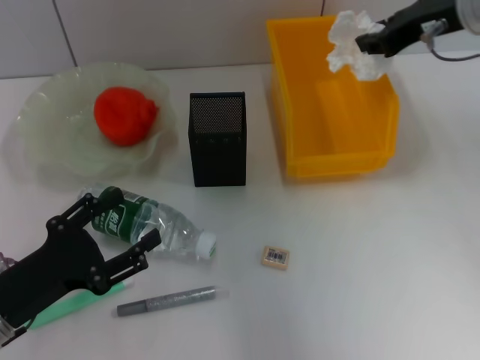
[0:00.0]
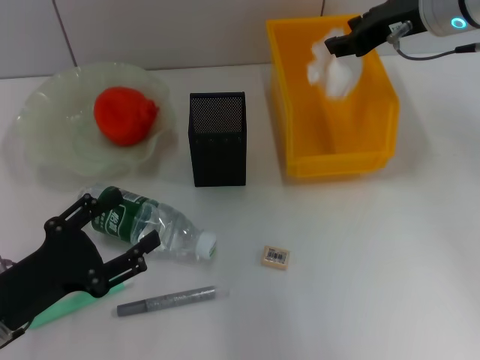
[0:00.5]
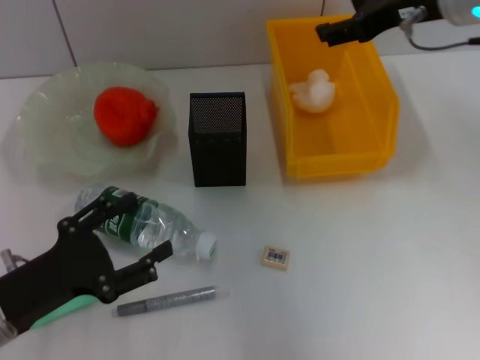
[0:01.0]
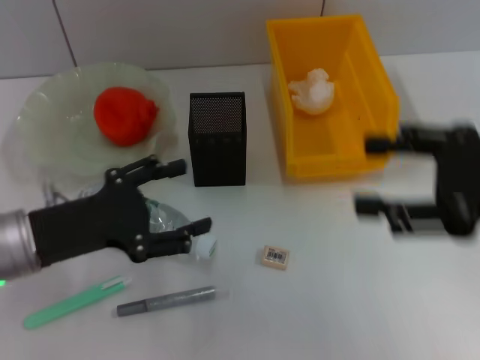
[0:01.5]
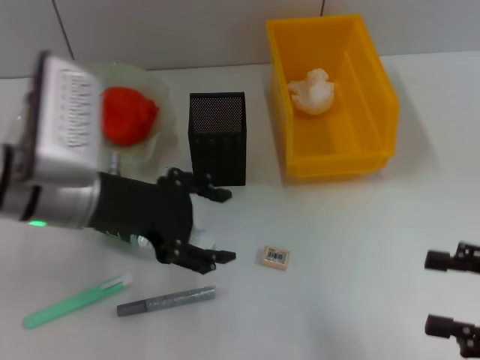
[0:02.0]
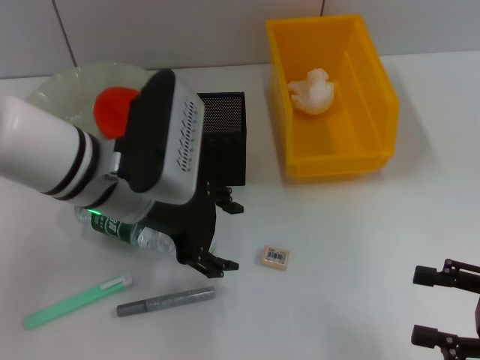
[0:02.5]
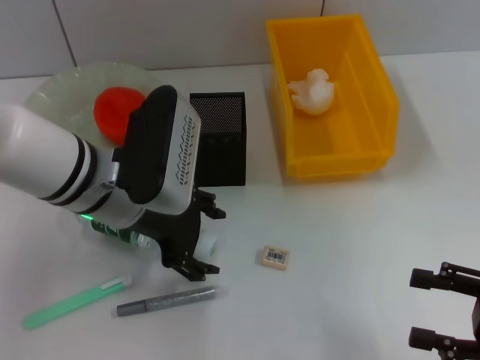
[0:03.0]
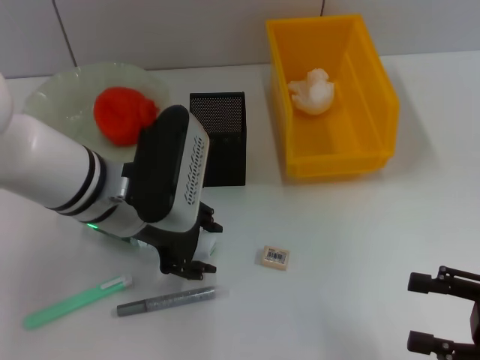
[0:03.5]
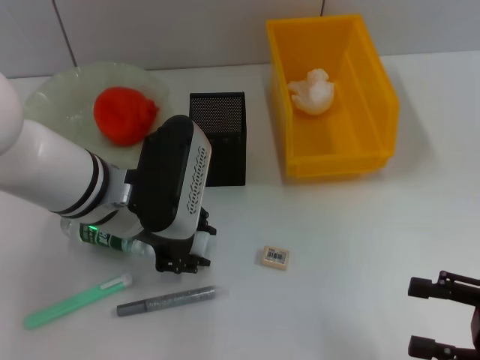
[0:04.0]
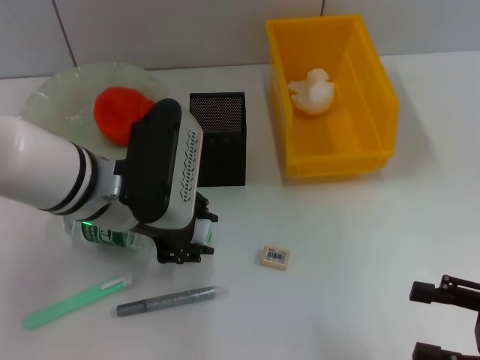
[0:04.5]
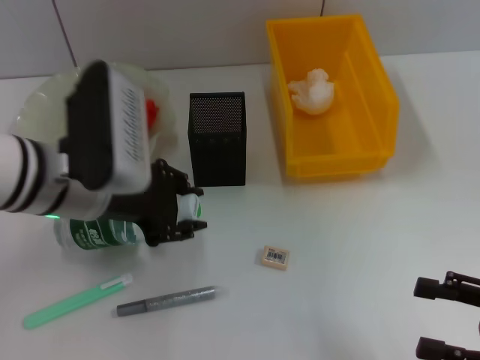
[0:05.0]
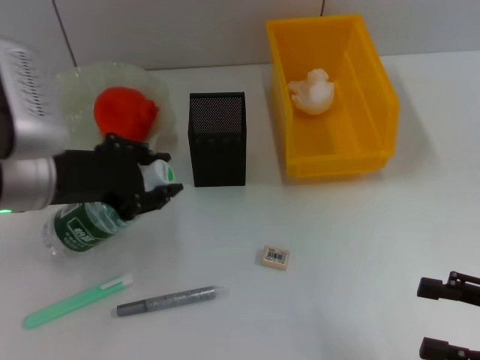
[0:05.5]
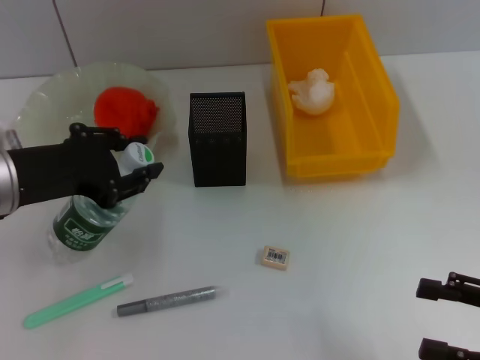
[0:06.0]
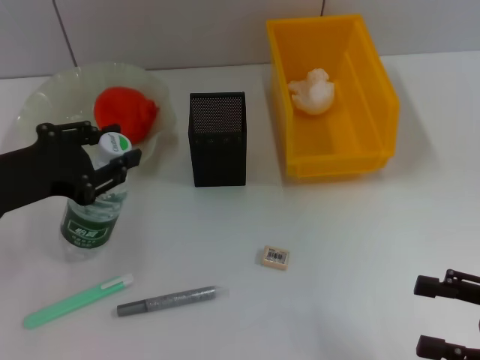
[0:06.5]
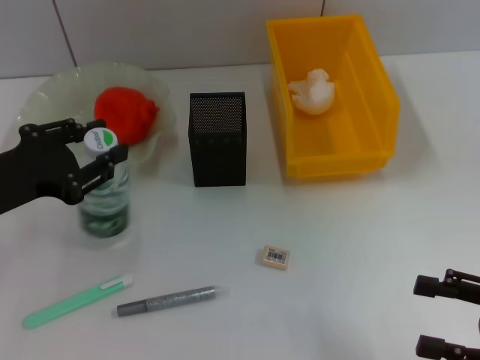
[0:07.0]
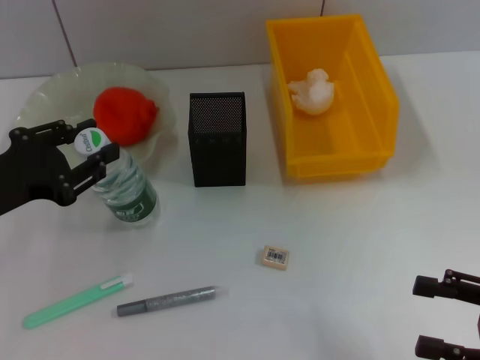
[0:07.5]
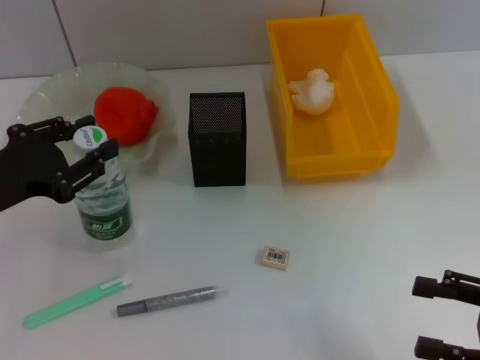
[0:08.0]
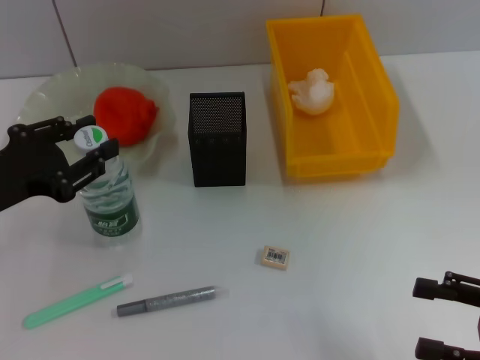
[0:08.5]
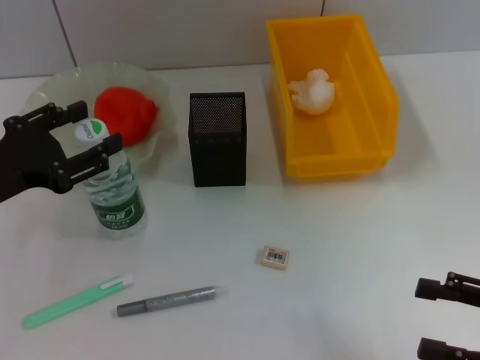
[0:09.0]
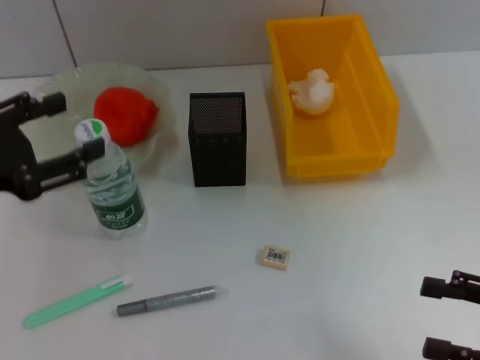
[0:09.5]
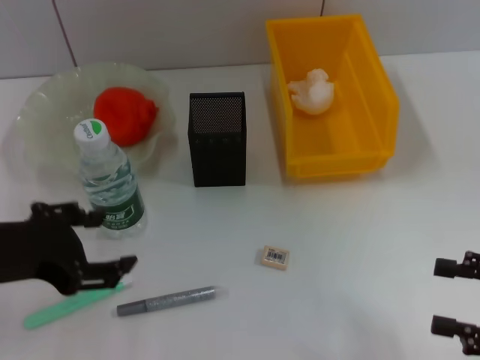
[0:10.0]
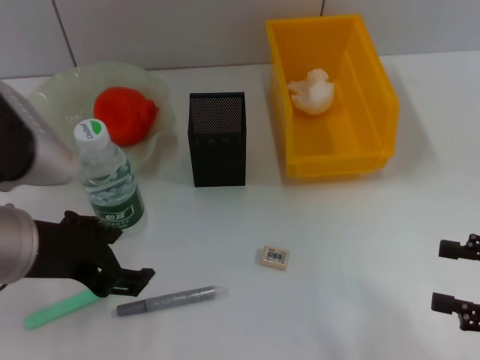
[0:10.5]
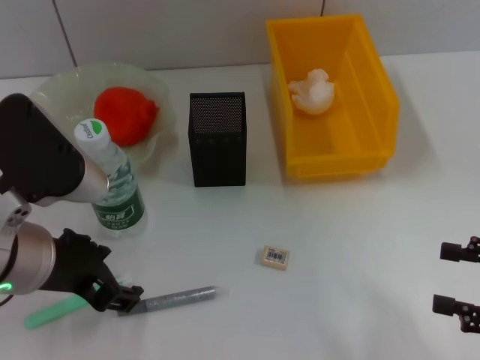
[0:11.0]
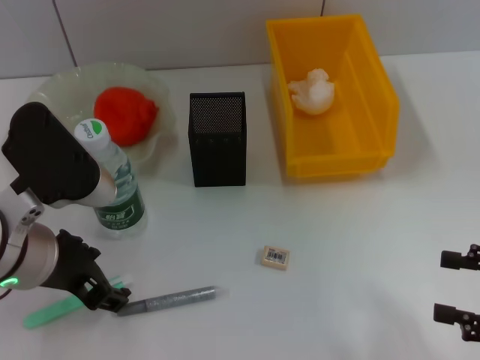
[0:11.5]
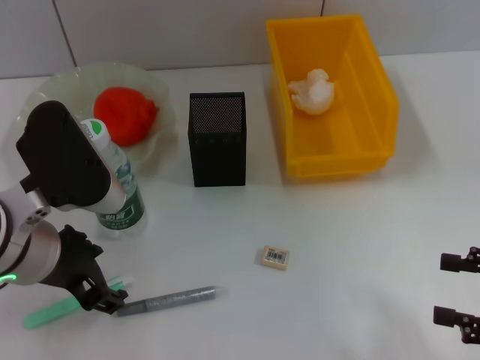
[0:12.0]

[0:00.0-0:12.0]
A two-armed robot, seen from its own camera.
Step, 0:01.0 to 0:04.5: Grab the water bottle with the left hand.
Step, 0:05.0 to 0:09.0: Place the water bottle on the table with the left hand.
0:00.0 to 0:02.0: The right gripper travels backward, downward and to the right by roughly 30 cm, and opens its fingers. The left gripper moves upward, forward and to the right, roughly 20 cm.
0:02.0 to 0:04.0: The left gripper changes place by roughly 5 cm, and closes.
0:04.0 to 0:06.0: The left gripper goes approximately 10 cm to the left.
0:06.0 to 0:08.0: The left gripper ends up some 5 cm from where it was.
0:08.0 to 0:10.0: The left gripper shifts by approximately 5 cm, and opens up.
0:10.0 to 0:12.0: The left gripper moves to the right, roughly 10 cm.

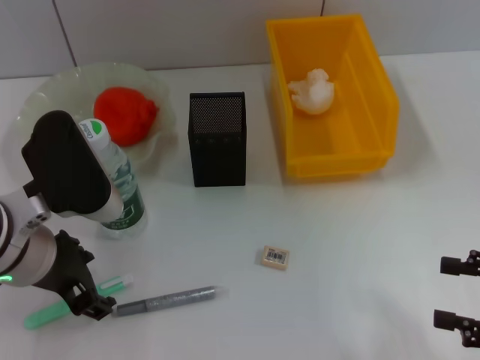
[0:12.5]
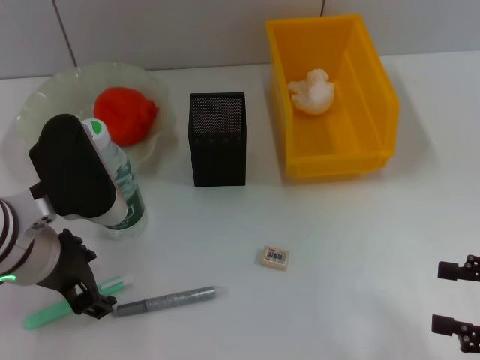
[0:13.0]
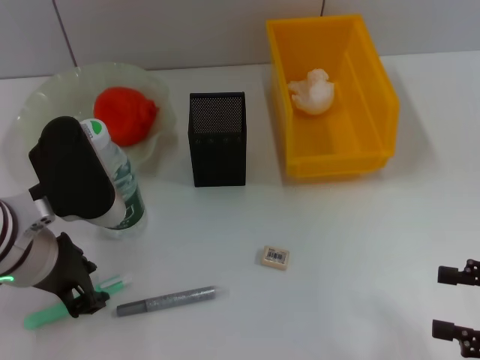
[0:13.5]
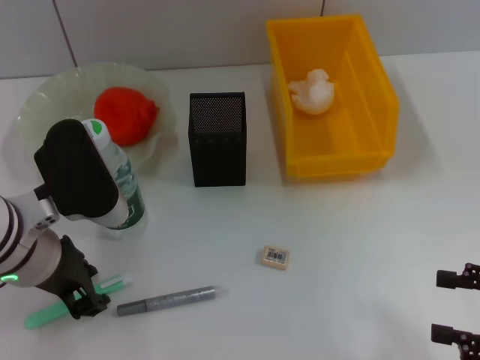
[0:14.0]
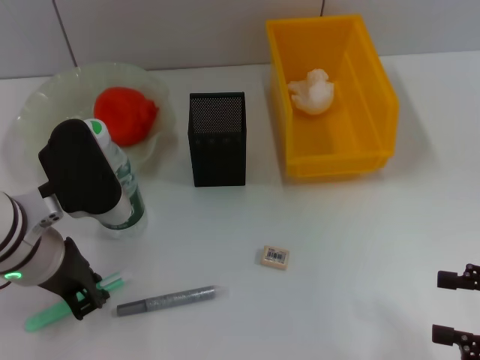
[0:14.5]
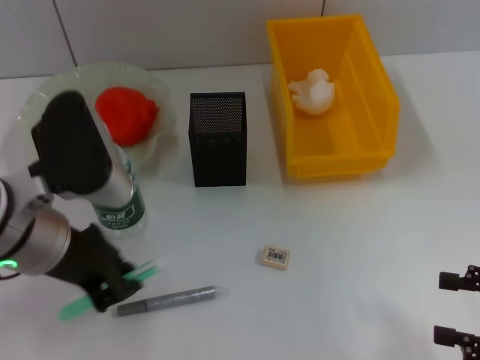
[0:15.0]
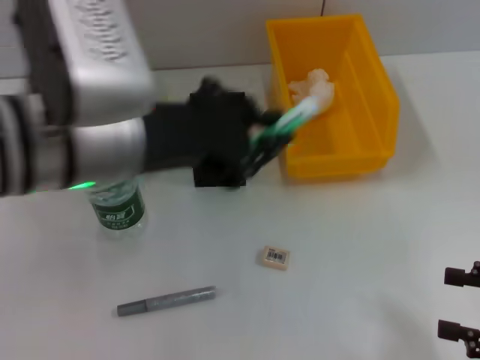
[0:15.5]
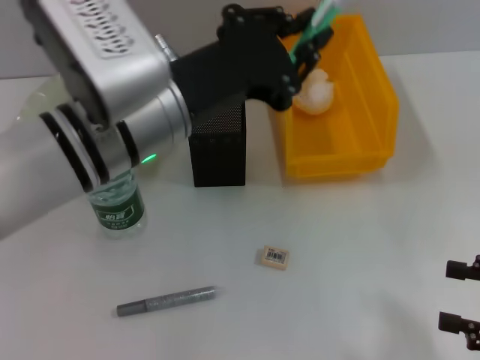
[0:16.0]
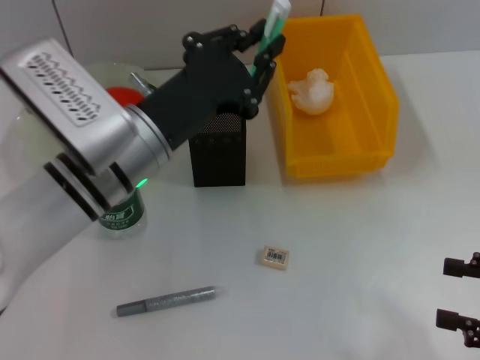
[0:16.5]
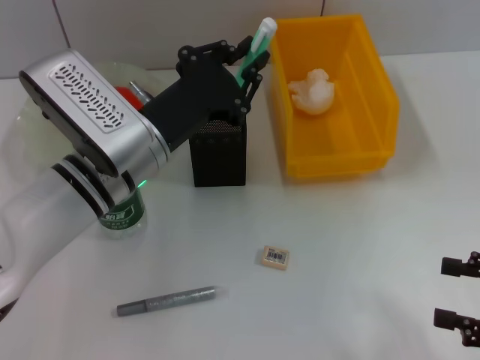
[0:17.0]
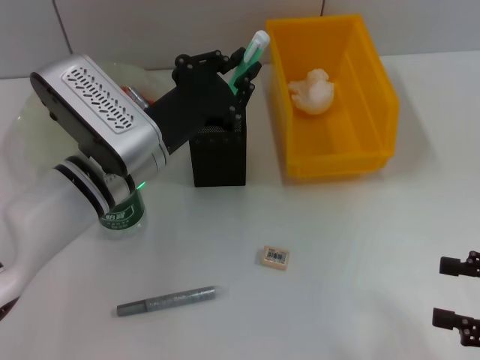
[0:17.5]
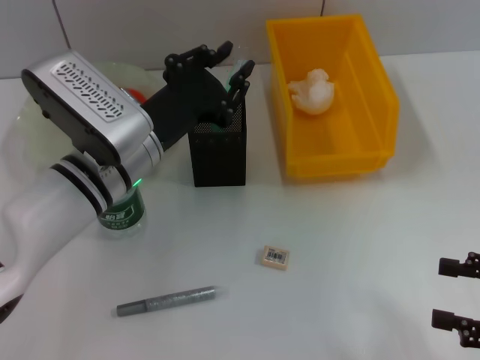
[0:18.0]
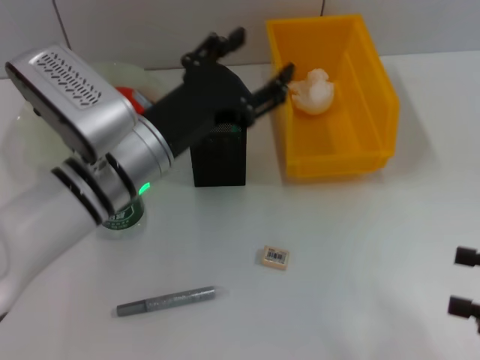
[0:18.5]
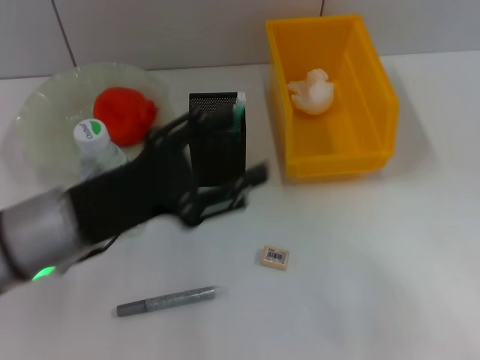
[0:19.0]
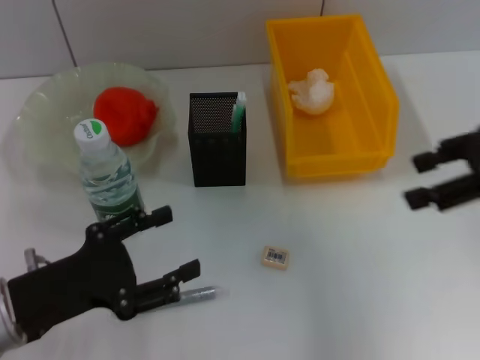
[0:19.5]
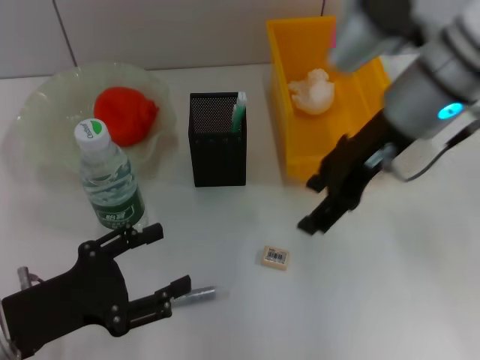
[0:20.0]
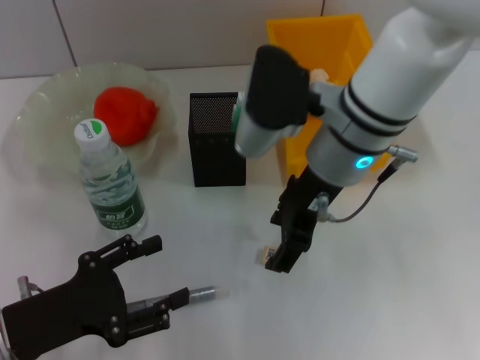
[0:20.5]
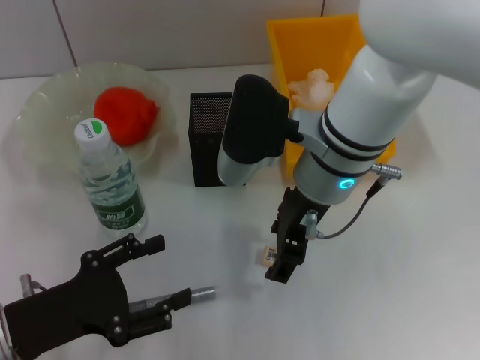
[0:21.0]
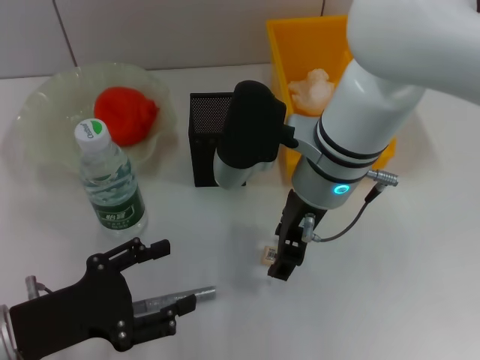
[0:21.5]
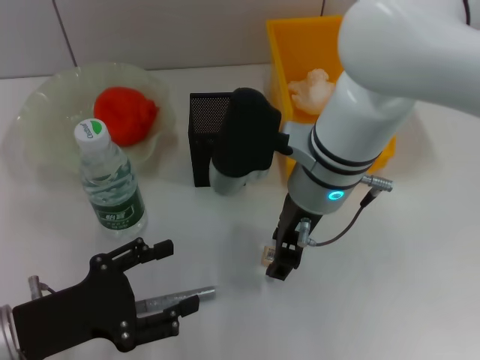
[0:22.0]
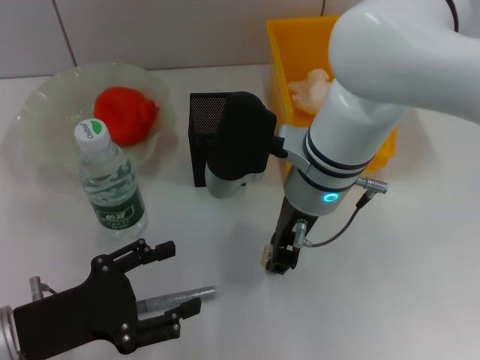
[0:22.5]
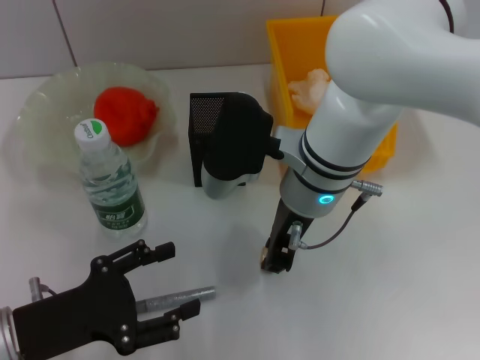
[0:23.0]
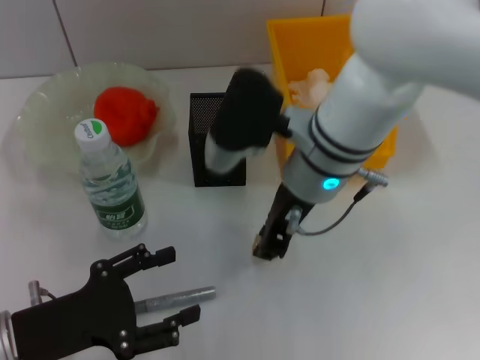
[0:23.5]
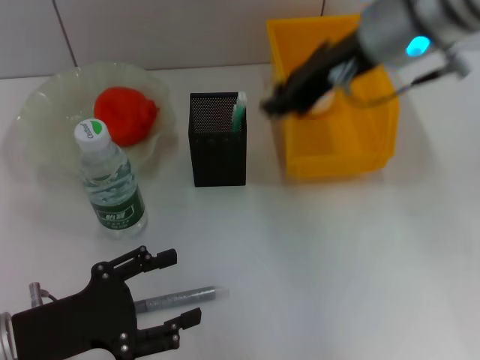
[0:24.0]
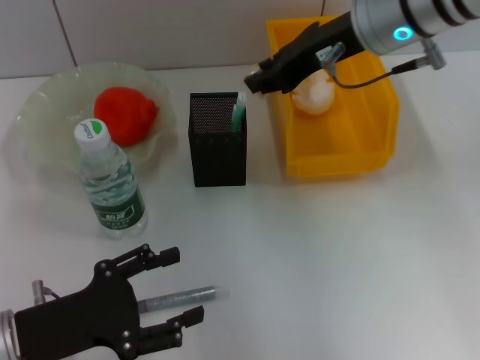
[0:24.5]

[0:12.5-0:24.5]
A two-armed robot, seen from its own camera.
Step, 0:15.0 to 0:18.5: Place the blue utility knife into the pen holder with the left hand.
Step, 0:19.0 to 0:23.0: Grab the eraser with the right hand.
0:12.5 to 0:14.5: The left gripper closes its fingers.
0:14.5 to 0:16.5: The left gripper shifts approximately 5 cm to the right, and moves about 10 cm upward and comes back.
0:16.5 to 0:18.5: The left gripper opens.
0:18.5 to 0:20.5: The left gripper moves to the left, backward and downward, approximately 20 cm. The right gripper is displaced to the left and forward by approximately 35 cm.
0:20.5 to 0:22.5: The right gripper closes its fingers.
0:22.5 to 0:24.5: The right gripper moves upward, to the right and forward, approximately 15 cm.

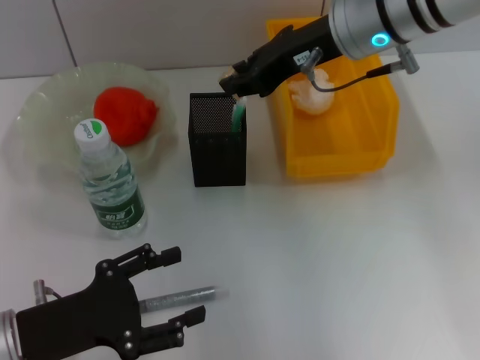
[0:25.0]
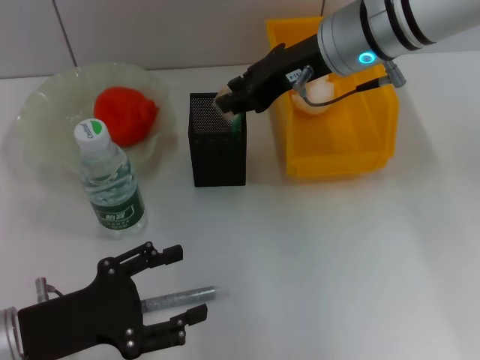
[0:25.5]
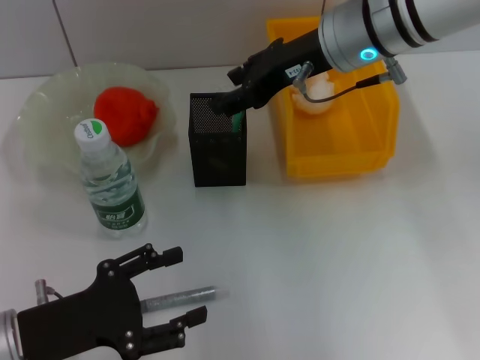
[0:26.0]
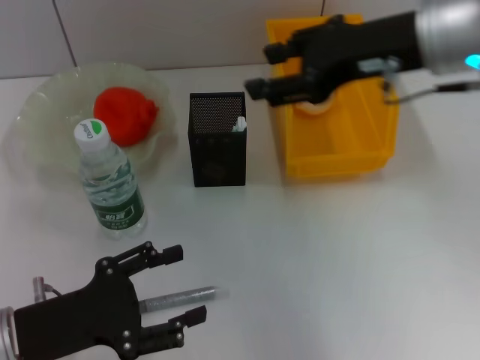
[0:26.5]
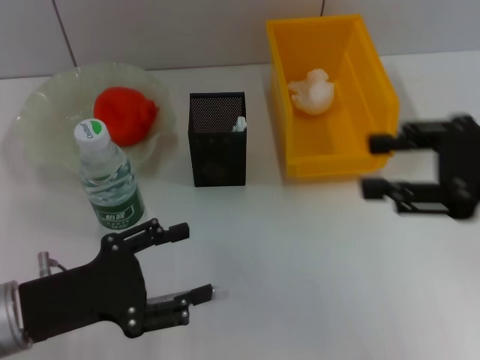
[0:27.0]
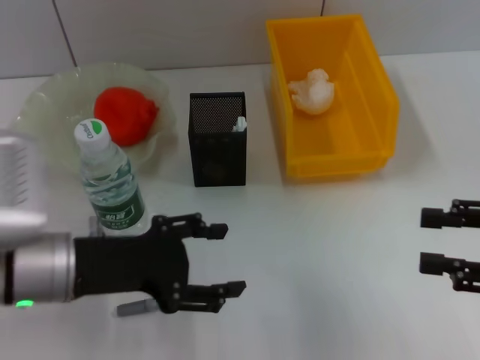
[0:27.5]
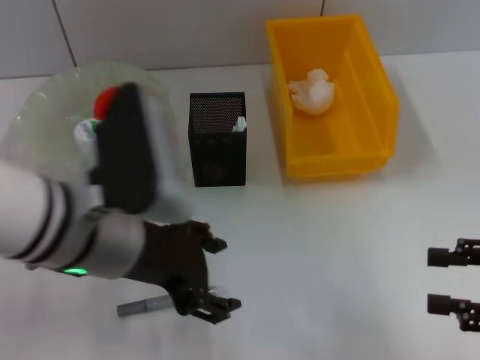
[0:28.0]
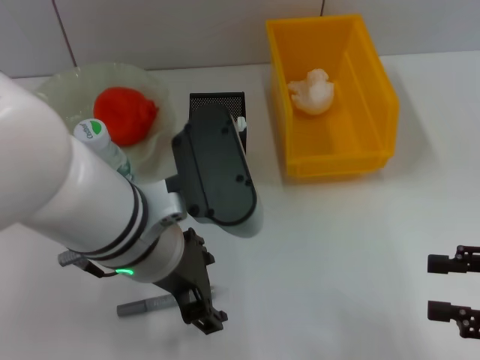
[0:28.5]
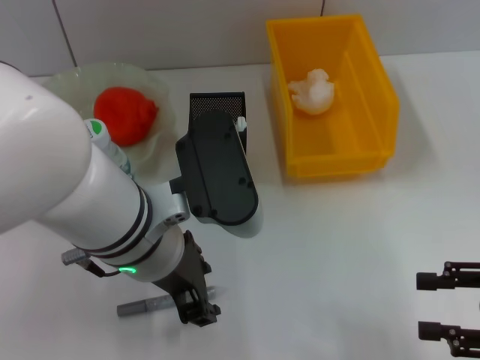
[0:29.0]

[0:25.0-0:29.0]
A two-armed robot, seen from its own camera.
0:25.0 to 0:27.0: The right gripper moves backward and to the right, roughly 25 cm, and opens up.
0:27.0 to 0:29.0: The left gripper moves to the right and upward, some 20 cm, while the right gripper shifts approximately 15 cm downward, backward and to the right.
